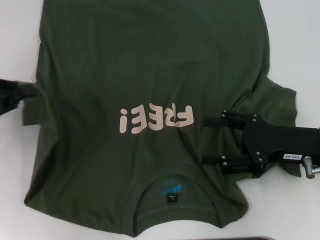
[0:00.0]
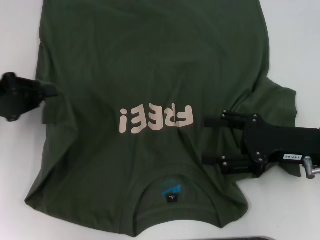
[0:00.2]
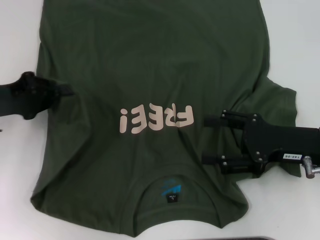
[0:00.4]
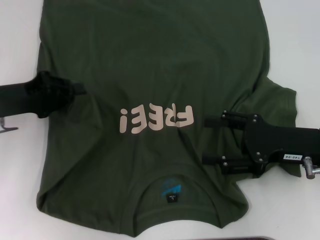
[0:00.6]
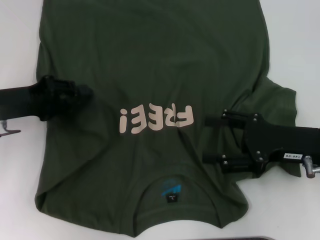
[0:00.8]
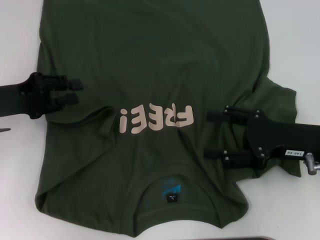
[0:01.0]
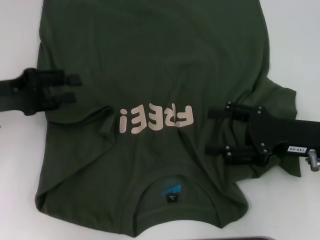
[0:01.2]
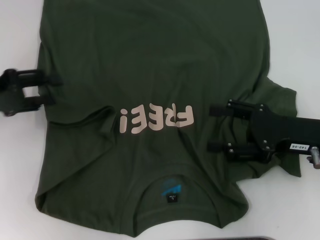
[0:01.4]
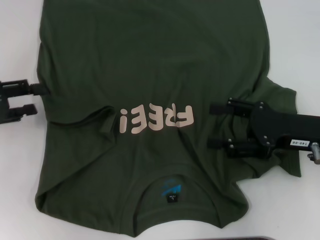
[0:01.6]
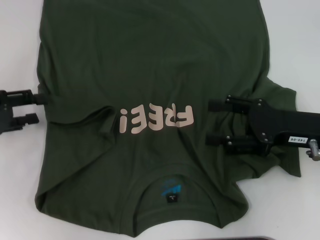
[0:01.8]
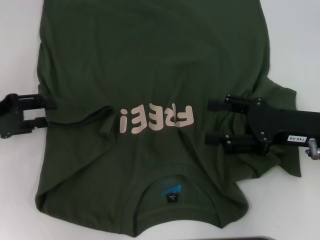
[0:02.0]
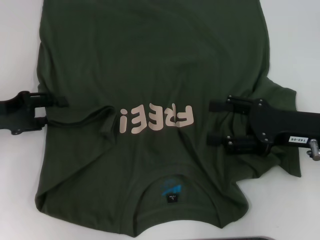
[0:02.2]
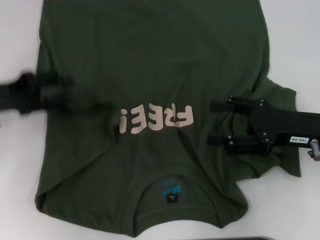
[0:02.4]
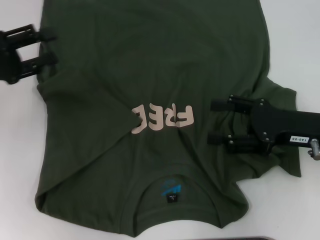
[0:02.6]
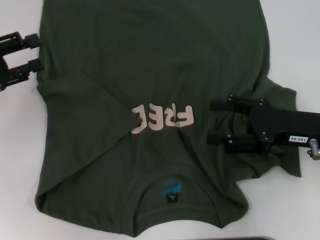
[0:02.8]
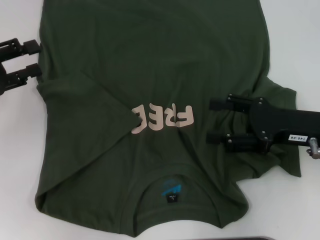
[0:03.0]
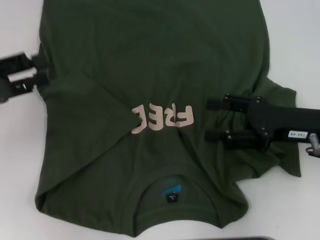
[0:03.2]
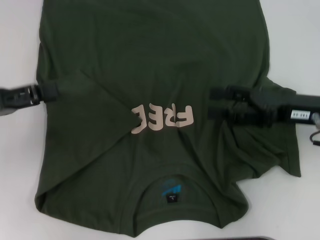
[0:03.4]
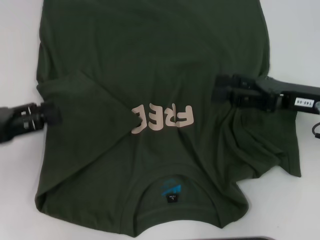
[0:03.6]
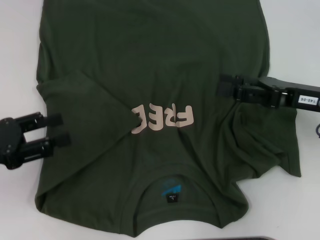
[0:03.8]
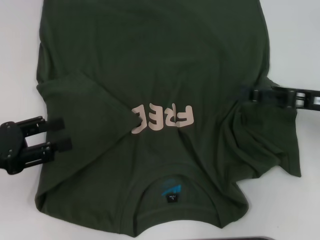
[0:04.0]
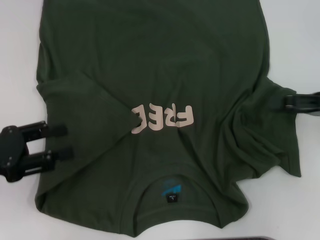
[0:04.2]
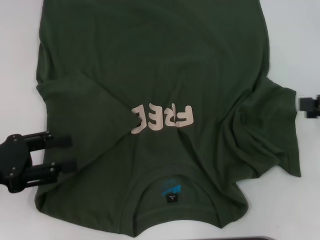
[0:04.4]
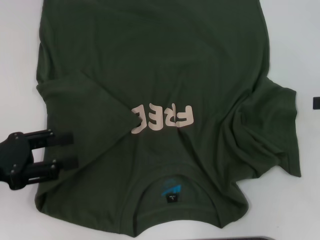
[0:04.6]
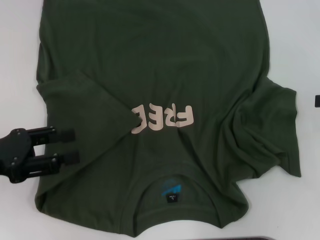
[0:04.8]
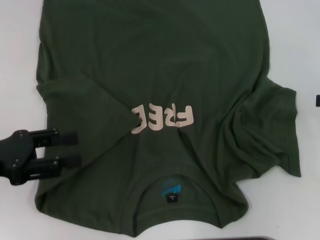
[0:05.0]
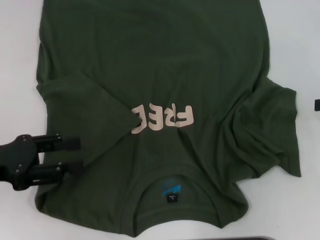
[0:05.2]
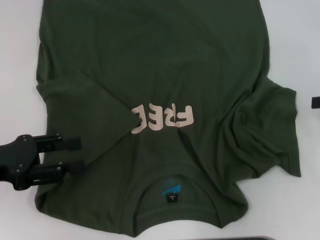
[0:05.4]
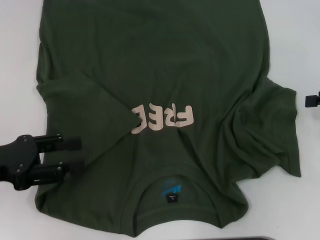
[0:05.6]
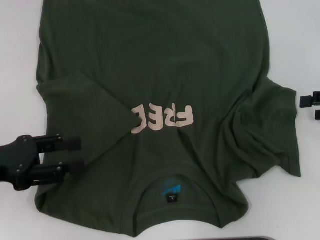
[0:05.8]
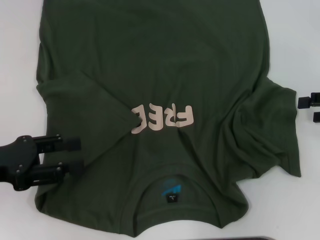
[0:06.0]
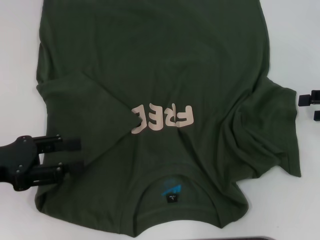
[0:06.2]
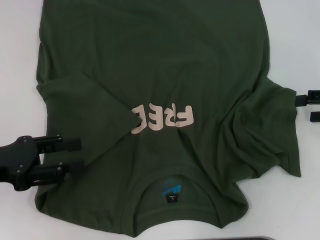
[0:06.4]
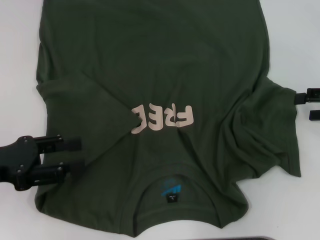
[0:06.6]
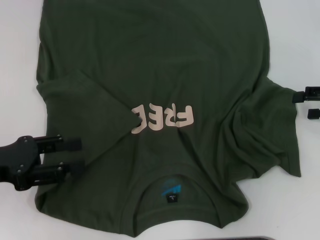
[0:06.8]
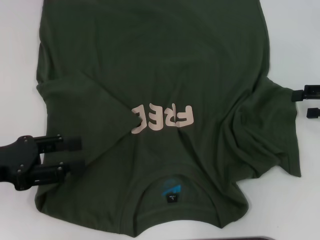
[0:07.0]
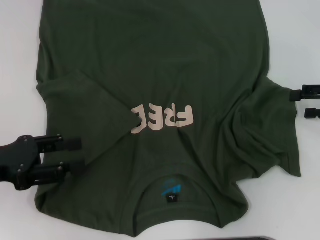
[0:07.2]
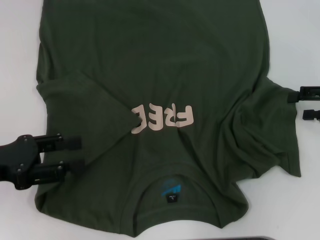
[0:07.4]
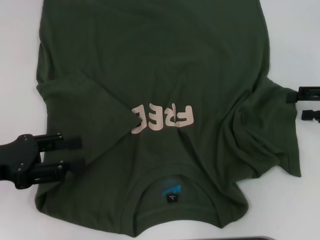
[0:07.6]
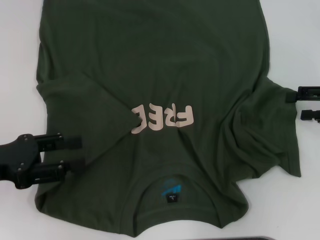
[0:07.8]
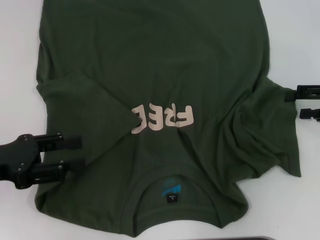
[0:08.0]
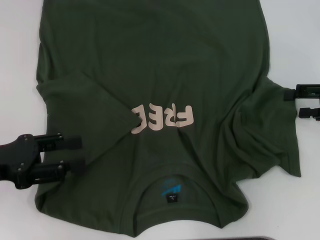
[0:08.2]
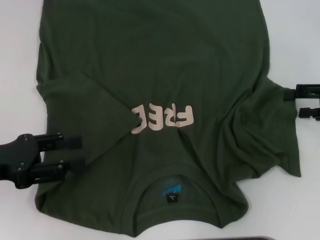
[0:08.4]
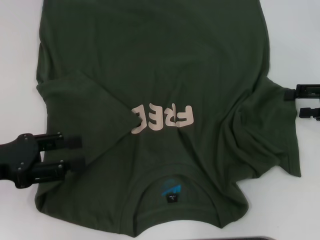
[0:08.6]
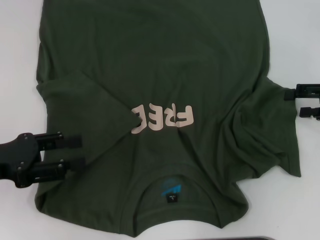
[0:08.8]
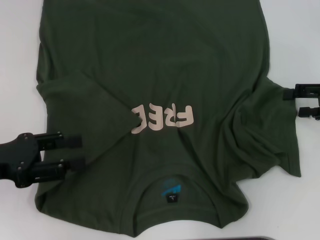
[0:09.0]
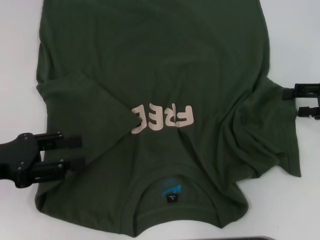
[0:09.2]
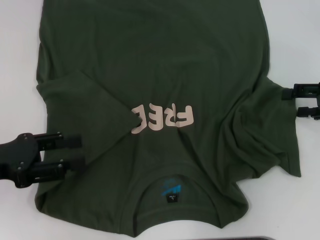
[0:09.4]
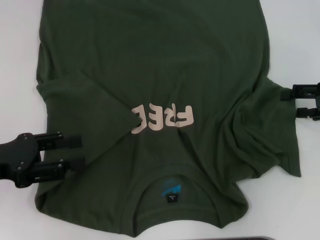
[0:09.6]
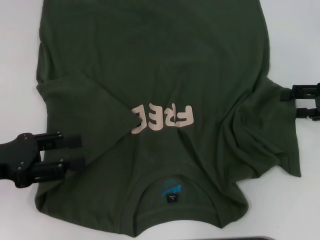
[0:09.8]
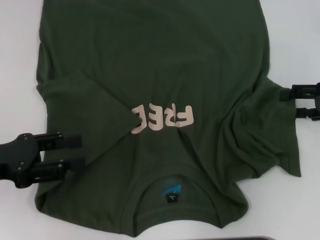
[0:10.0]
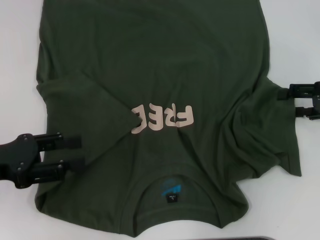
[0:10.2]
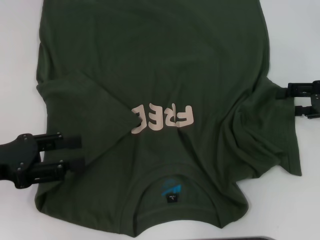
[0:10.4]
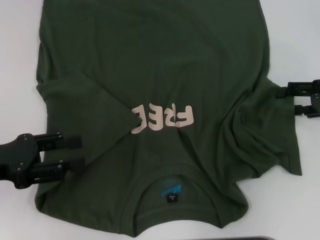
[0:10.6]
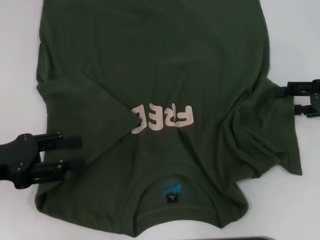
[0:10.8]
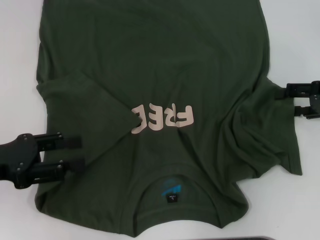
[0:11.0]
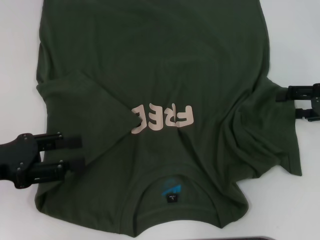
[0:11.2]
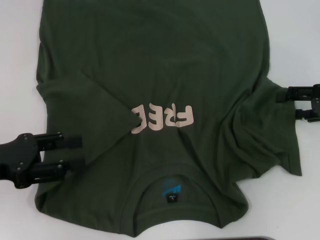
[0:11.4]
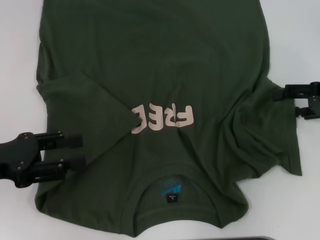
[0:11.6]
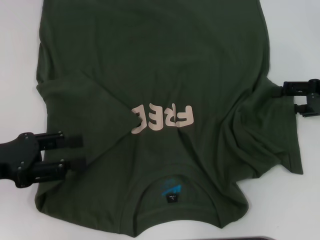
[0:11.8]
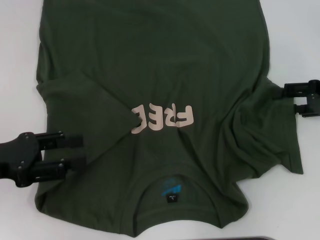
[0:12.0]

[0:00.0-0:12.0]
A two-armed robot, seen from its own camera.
Step, 0:00.0 to 0:02.8: Fold the bottom left sleeve with your left hand.
0:00.0 to 0:01.6: The left gripper opens its fingers.
0:01.6 to 0:03.0: The grippers stay close to where they were, moving slightly.
0:03.0 to 0:04.4: The right gripper heads to the right, covering roughly 10 cm. Meanwhile the left gripper moves backward, roughly 10 cm.
0:04.4 to 0:06.0: The grippers move only a little.
0:06.0 to 0:07.6: There are only small adjustments of the grippers.
0:07.6 to 0:09.0: Neither gripper changes place.
0:09.0 to 0:10.4: Both grippers stay put.
0:10.4 to 0:12.0: Both grippers stay about where they are.

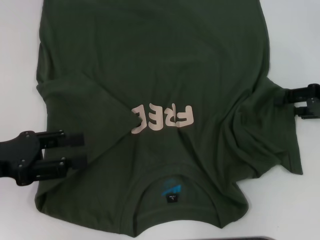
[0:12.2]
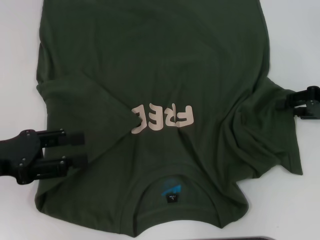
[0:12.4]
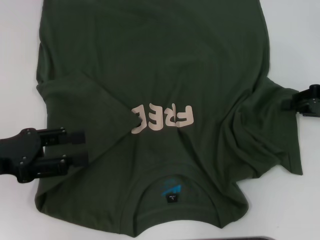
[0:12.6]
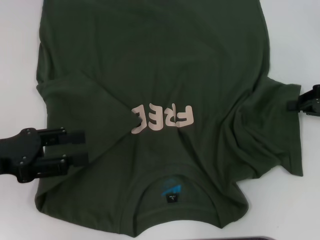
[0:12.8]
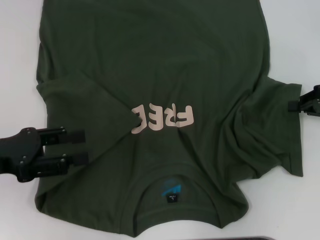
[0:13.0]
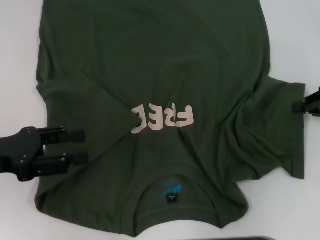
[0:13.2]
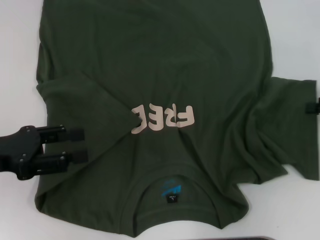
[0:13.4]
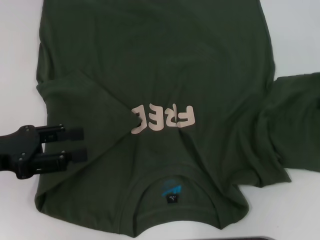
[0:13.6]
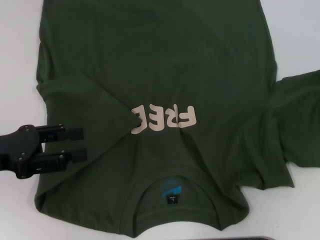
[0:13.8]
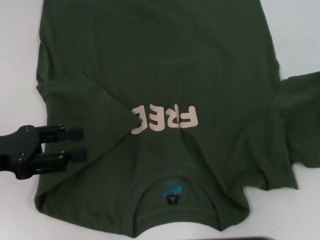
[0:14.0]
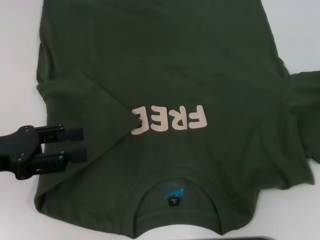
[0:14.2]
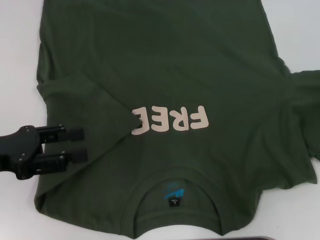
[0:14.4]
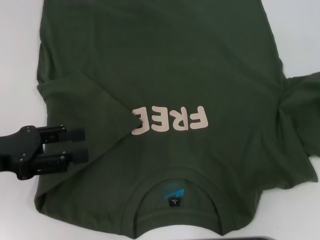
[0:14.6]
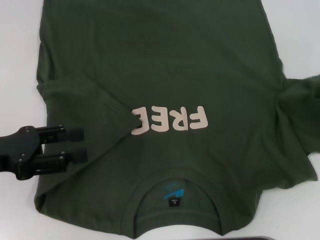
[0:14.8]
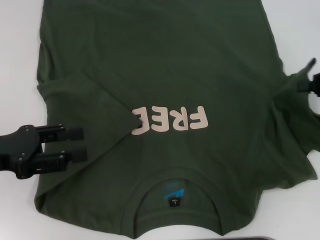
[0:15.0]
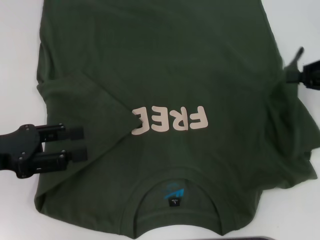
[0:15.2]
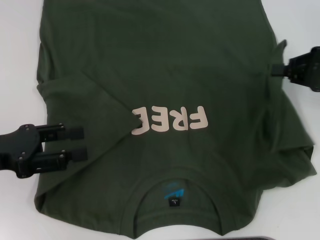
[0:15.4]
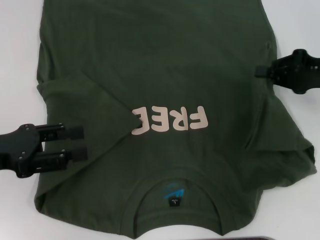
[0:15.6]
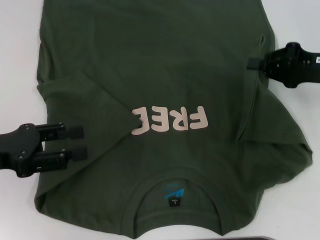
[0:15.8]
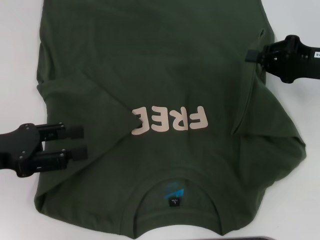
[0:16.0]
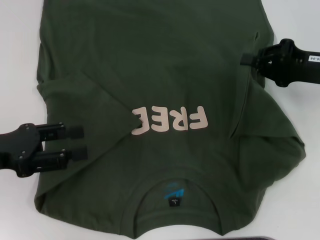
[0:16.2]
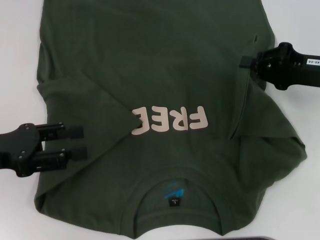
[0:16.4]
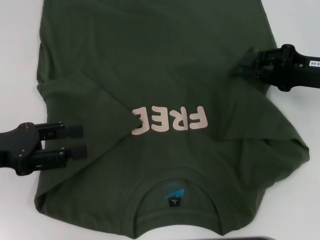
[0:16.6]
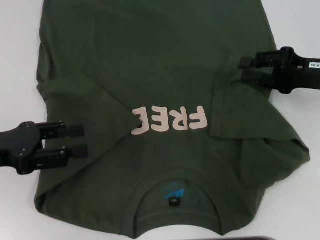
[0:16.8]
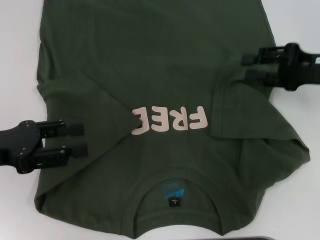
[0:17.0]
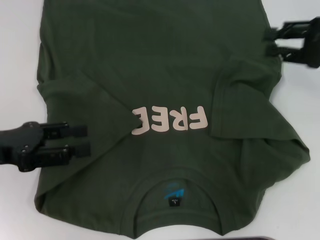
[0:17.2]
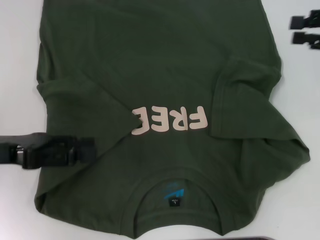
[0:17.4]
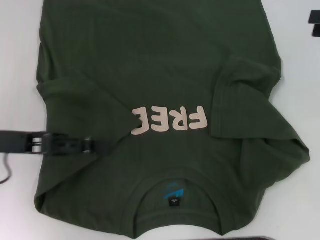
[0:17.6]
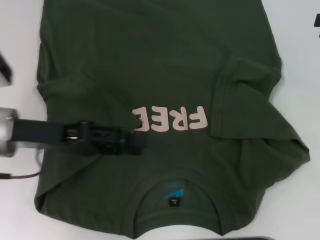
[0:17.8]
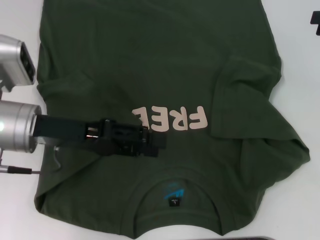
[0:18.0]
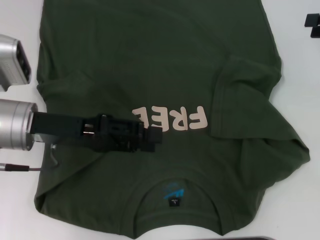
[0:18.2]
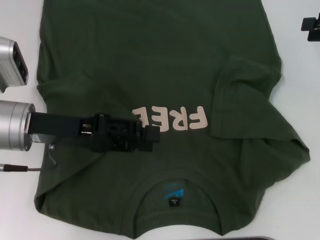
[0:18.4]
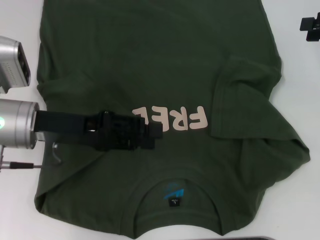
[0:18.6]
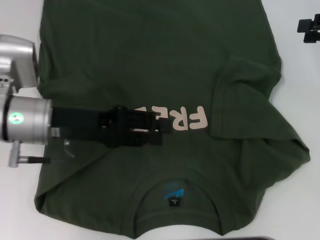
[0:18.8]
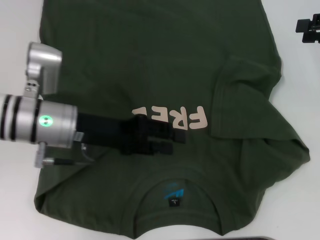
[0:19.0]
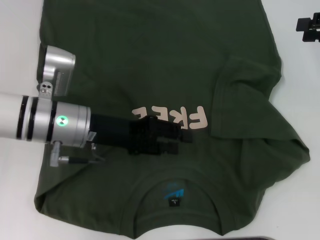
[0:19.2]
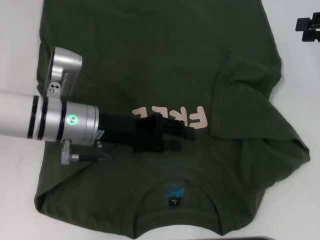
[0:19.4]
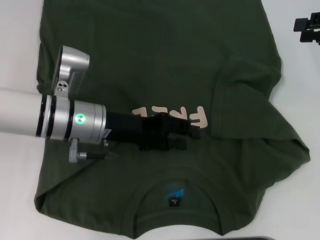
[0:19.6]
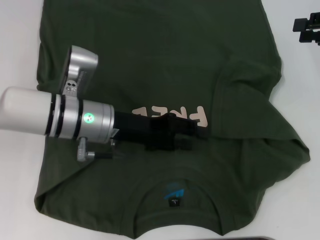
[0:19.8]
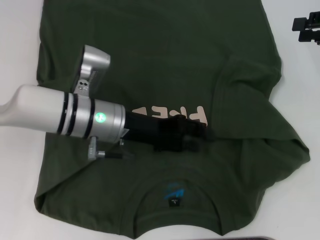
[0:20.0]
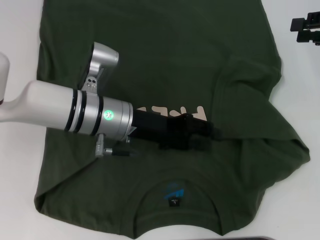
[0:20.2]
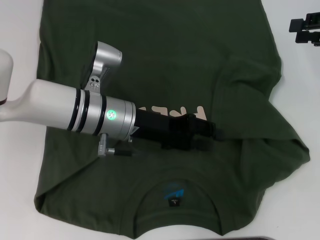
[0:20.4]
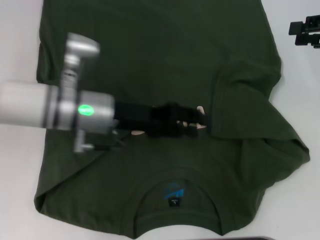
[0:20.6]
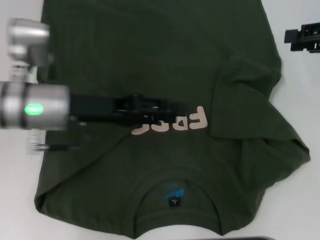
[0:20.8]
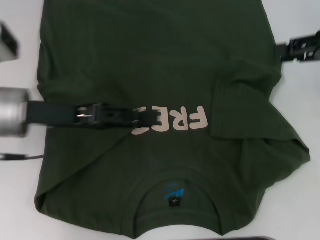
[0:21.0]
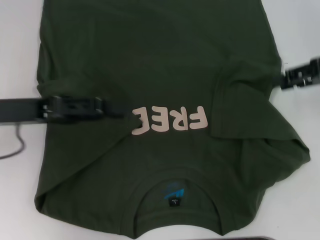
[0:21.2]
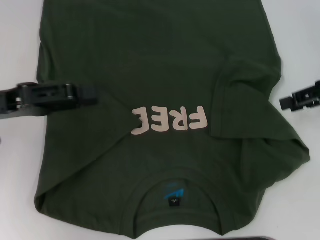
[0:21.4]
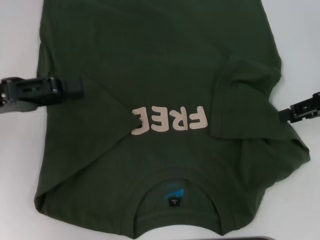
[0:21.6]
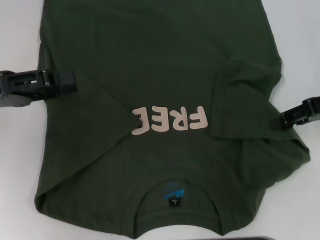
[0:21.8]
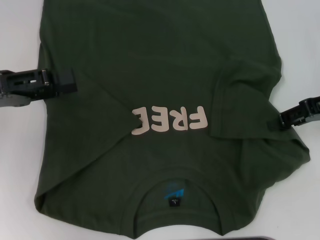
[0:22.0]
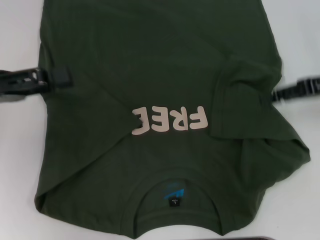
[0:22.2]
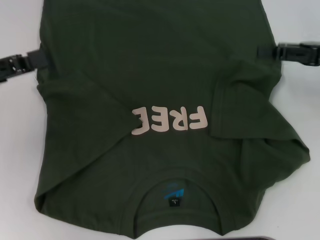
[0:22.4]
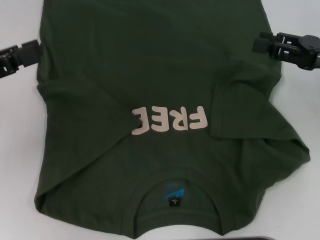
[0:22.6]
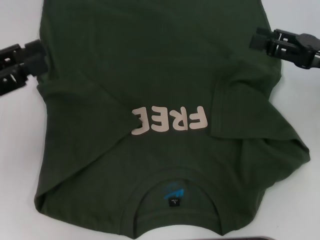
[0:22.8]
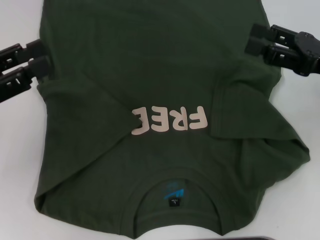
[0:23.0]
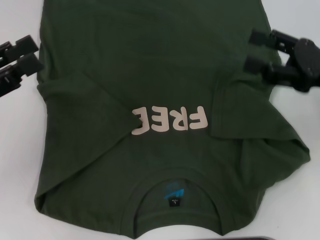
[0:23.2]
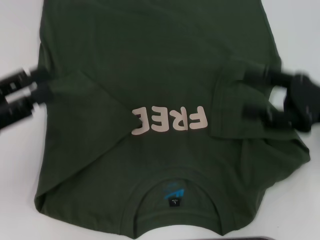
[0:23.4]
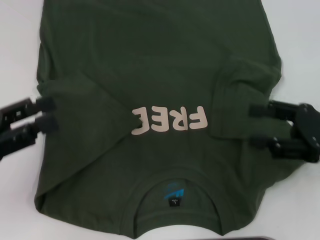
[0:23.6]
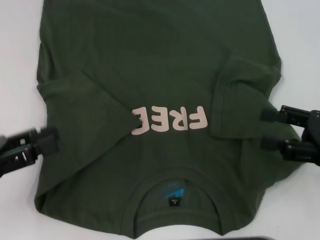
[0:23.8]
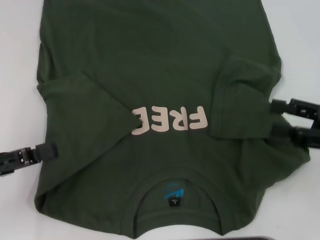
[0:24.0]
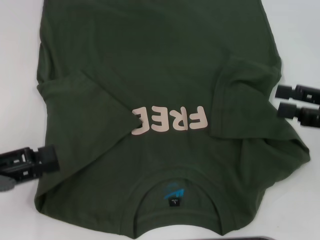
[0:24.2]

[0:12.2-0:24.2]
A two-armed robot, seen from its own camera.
Step, 0:12.2 to 0:17.0: Fold the bottom right sleeve with your right hand.
0:12.2 to 0:13.8: The right gripper is displaced to the right by roughly 5 cm, and closes its fingers.
0:13.8 to 0:15.2: The right gripper is displaced to the left by about 5 cm.
0:15.2 to 0:16.6: The right gripper travels to the left by roughly 5 cm.
0:16.6 to 0:18.2: The left gripper shifts approximately 10 cm to the right, while the right gripper goes roughly 10 cm upward and to the right, and opens its fingers.
0:18.2 to 0:19.8: The left gripper moves to the right, roughly 10 cm.
0:19.8 to 0:21.2: The left gripper heads to the left and upward, covering some 15 cm.
0:21.2 to 0:22.6: The left gripper goes about 10 cm to the left. Meanwhile the right gripper moves roughly 5 cm.
0:22.6 to 0:24.2: The left gripper moves backward and downward, about 10 cm; the right gripper travels backward by roughly 5 cm.
